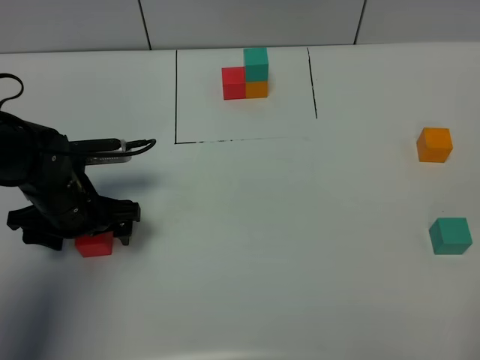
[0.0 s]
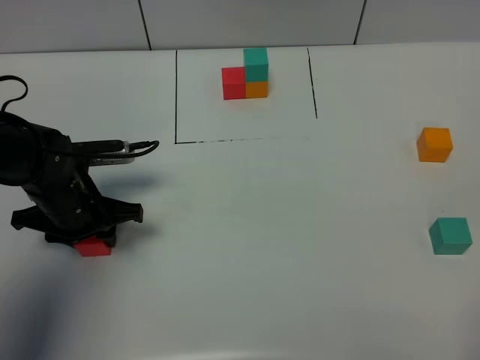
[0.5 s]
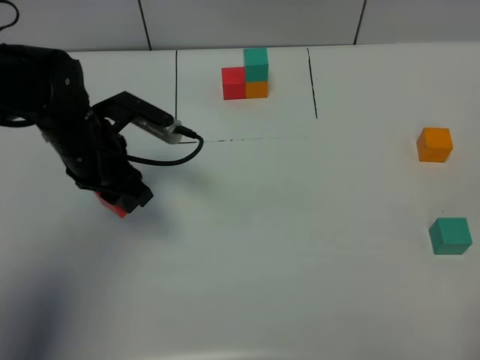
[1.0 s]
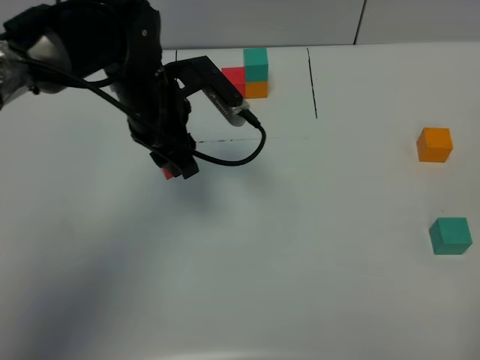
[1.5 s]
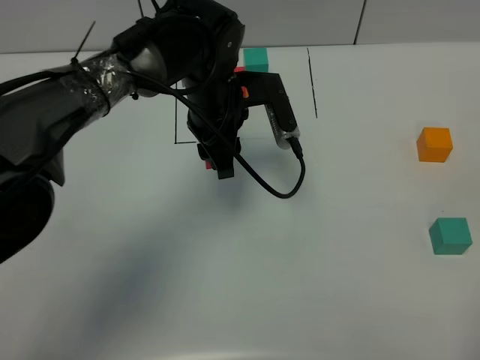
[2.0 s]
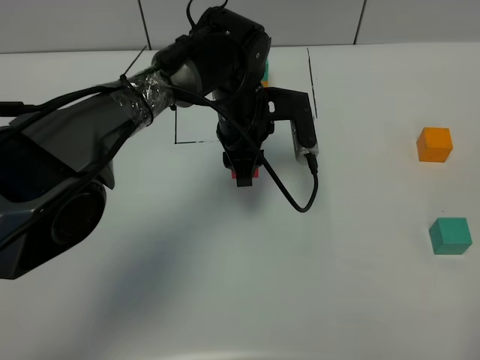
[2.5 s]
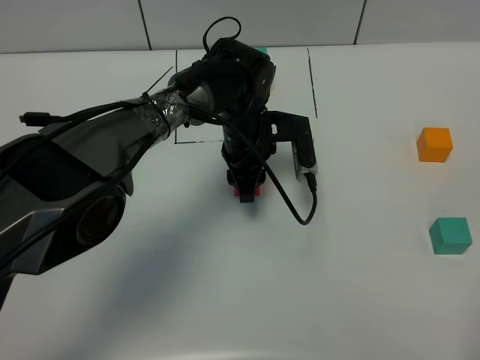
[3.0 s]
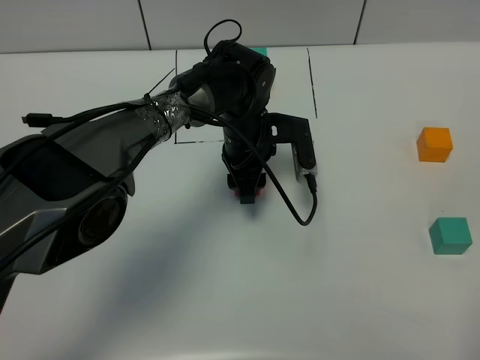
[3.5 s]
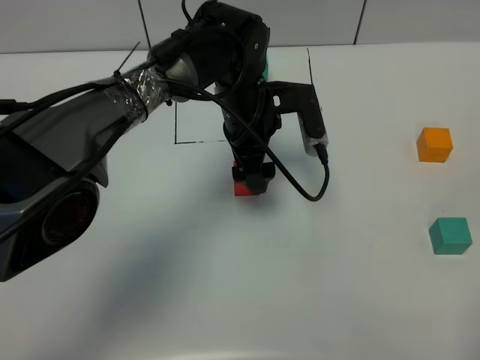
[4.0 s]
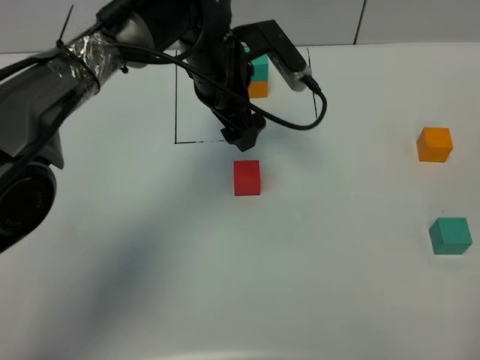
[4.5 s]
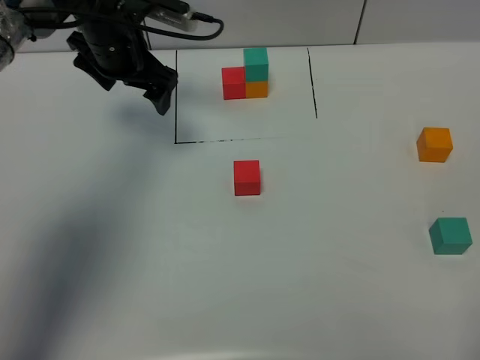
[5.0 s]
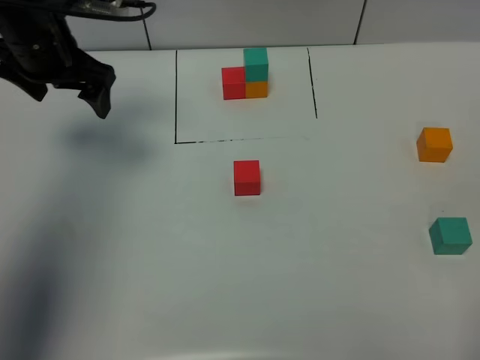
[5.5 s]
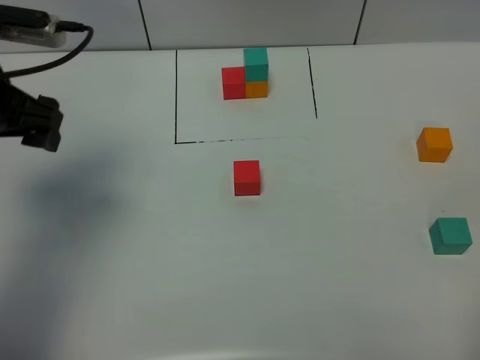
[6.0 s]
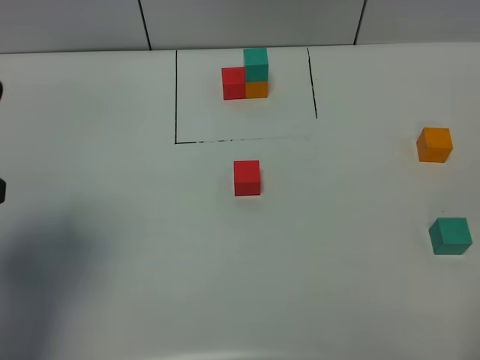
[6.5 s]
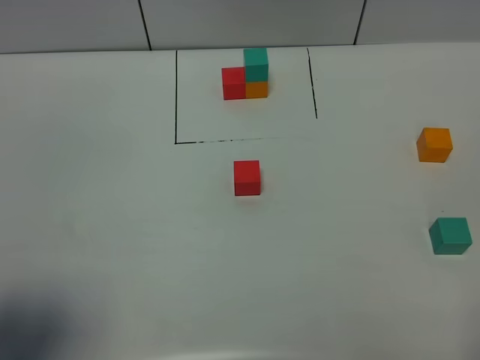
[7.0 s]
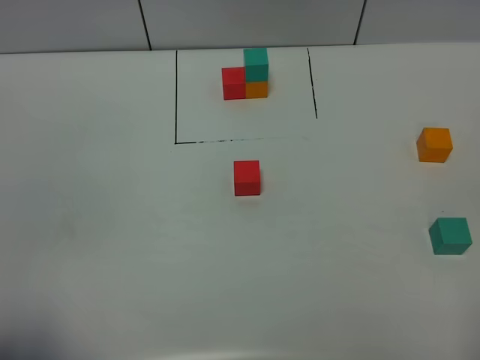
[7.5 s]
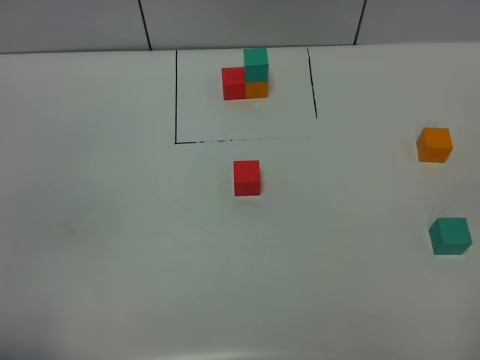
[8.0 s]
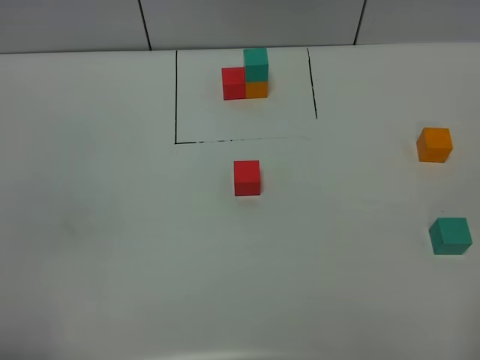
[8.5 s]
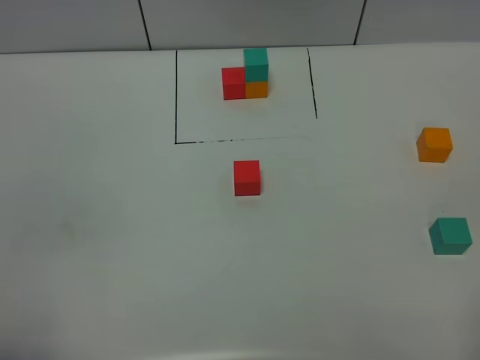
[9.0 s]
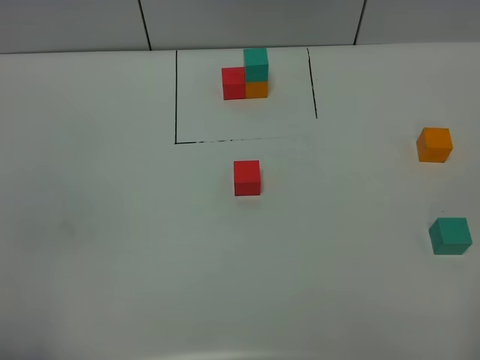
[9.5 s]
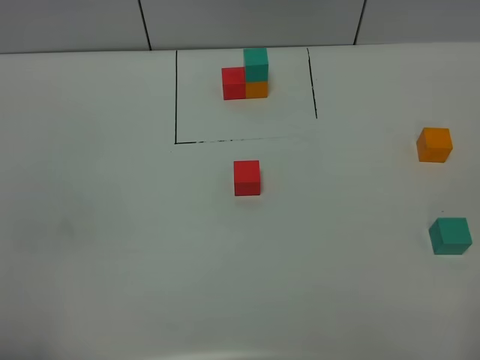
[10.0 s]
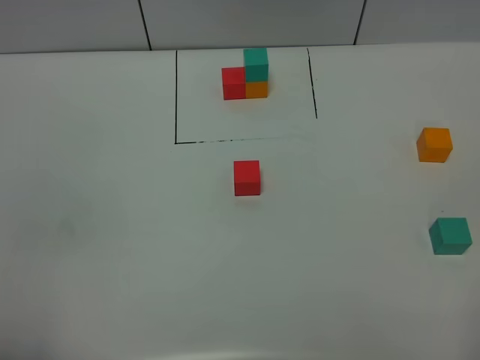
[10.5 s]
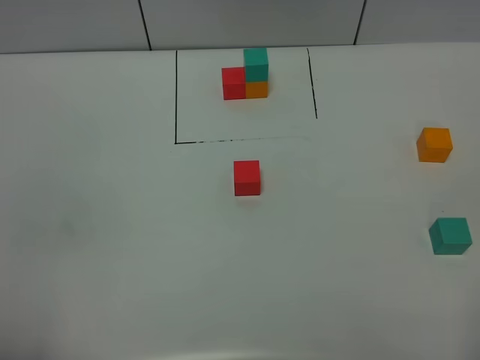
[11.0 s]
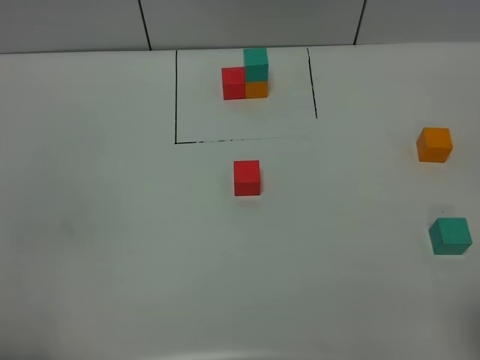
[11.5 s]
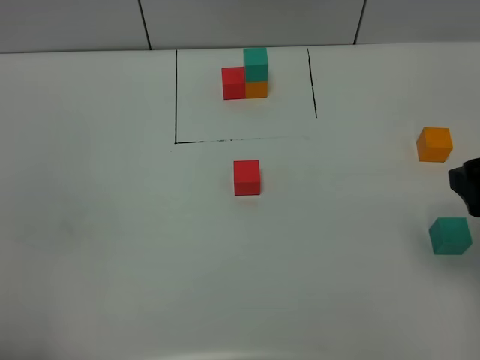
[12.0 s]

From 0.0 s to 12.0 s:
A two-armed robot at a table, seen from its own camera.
Task of the whole recording: According to the building block template in front, assemble the scattered blocks together.
Step, from 0.0 s to 3.5 s: Put the red build block in the center of the table.
From 0.0 s to 2.0 s: The left gripper shifts roughly 20 cm to the right and forward, and closes.
From 2.0 s to 4.0 s: The left gripper goes downward and returns, some 10 cm each way, and opens.
From 4.0 s to 6.0 s: The left gripper shifts roughly 30 cm to the left and upward.
From 6.0 s to 8.0 s: The left gripper travels backward by approximately 30 cm.
From 10.0 s to 12.0 s: The right gripper moves forward, some 20 cm.

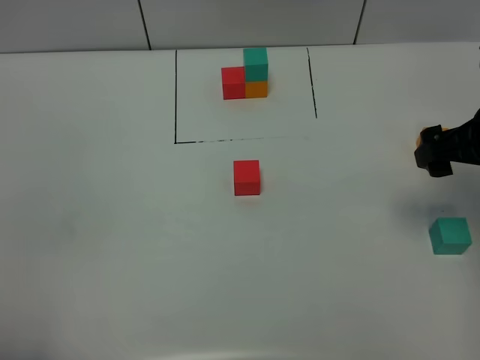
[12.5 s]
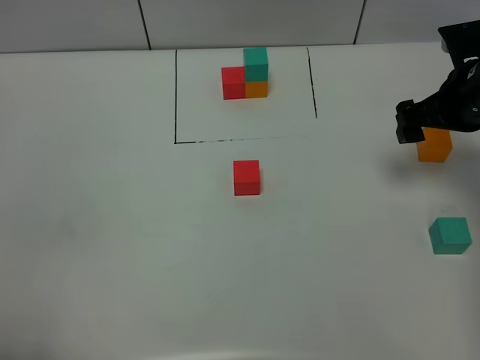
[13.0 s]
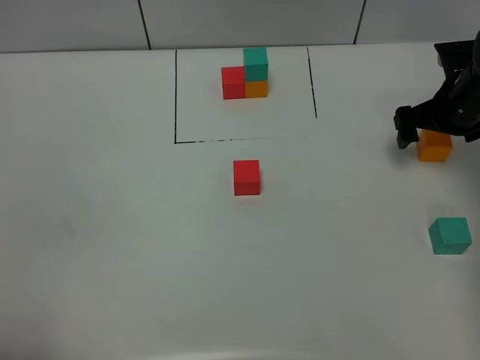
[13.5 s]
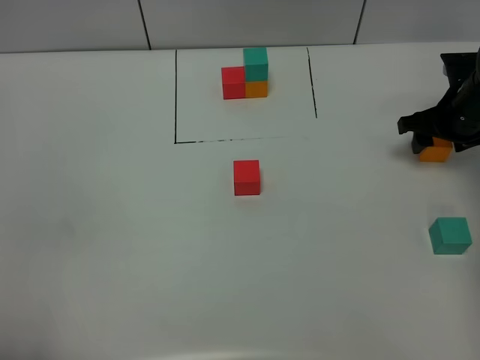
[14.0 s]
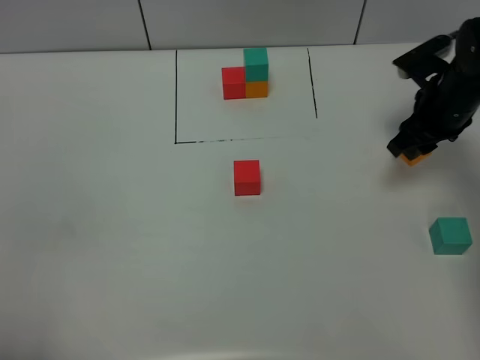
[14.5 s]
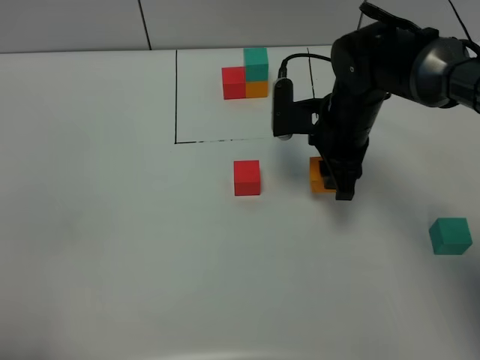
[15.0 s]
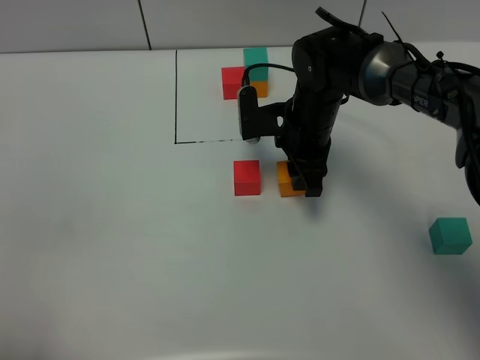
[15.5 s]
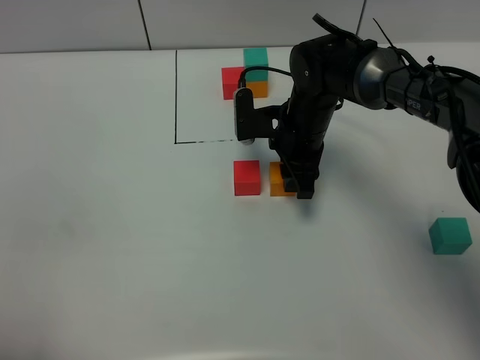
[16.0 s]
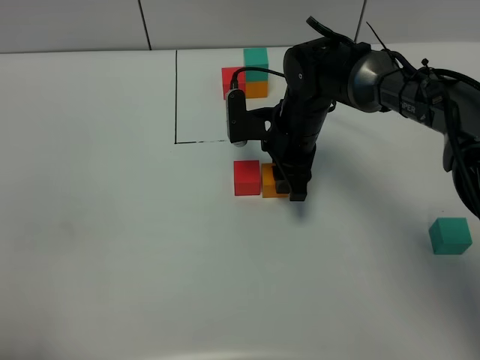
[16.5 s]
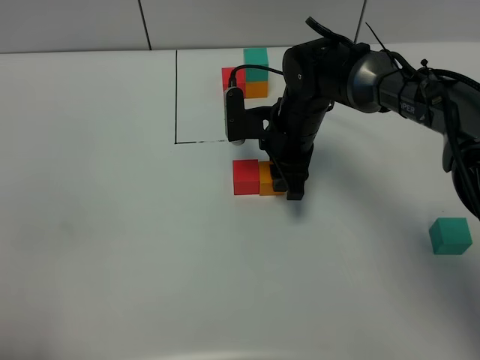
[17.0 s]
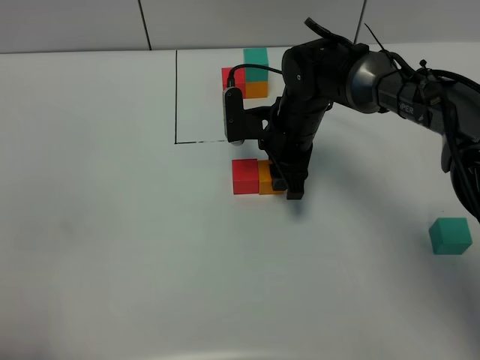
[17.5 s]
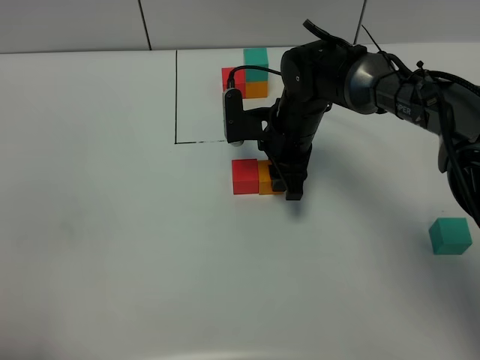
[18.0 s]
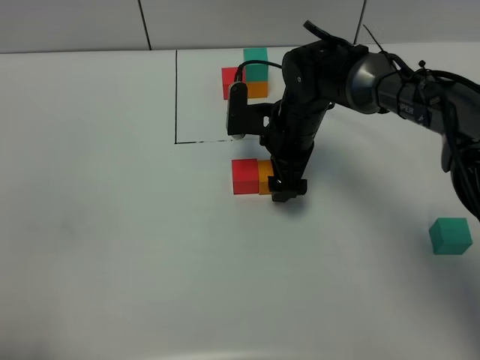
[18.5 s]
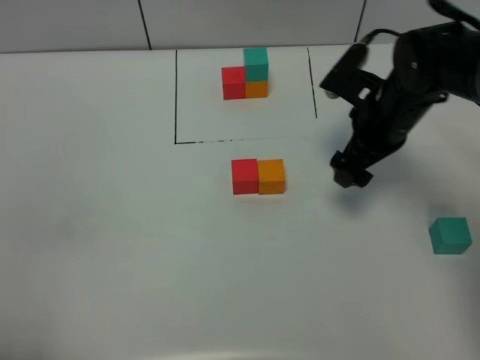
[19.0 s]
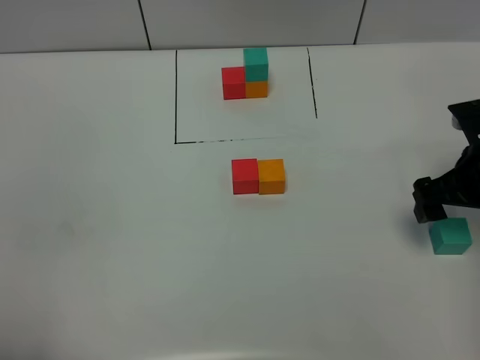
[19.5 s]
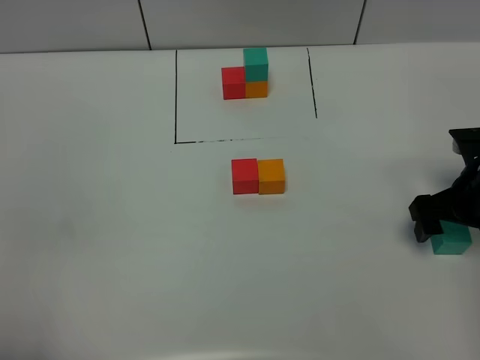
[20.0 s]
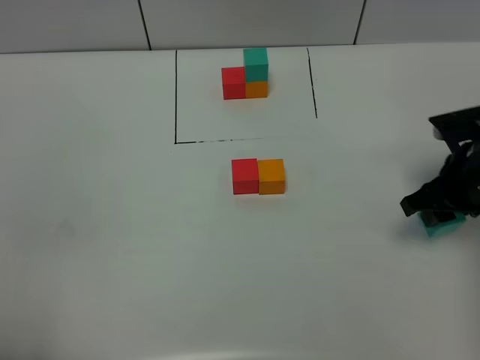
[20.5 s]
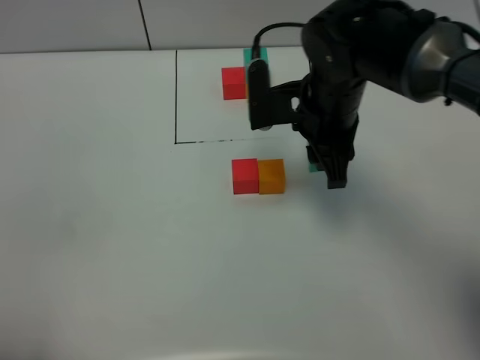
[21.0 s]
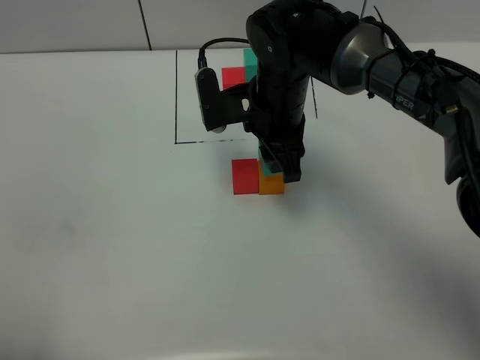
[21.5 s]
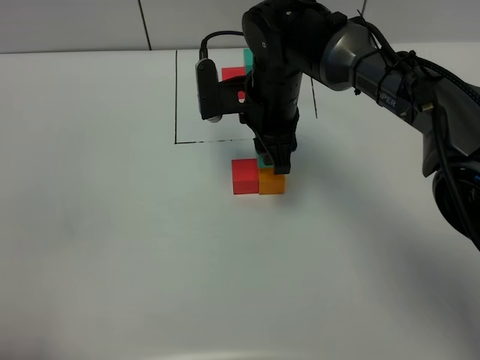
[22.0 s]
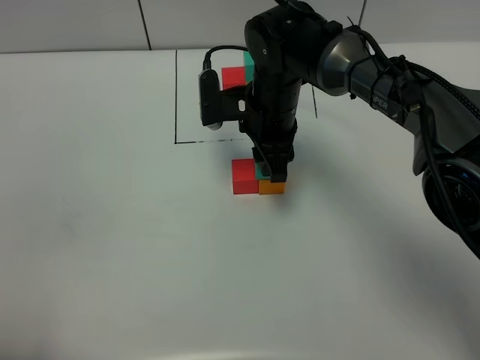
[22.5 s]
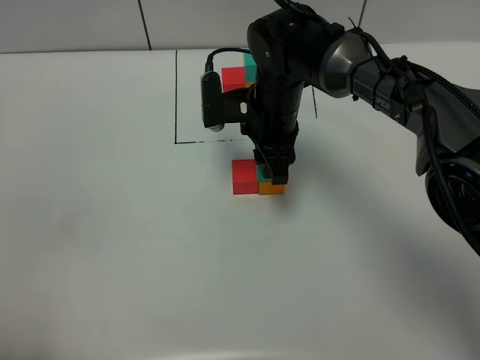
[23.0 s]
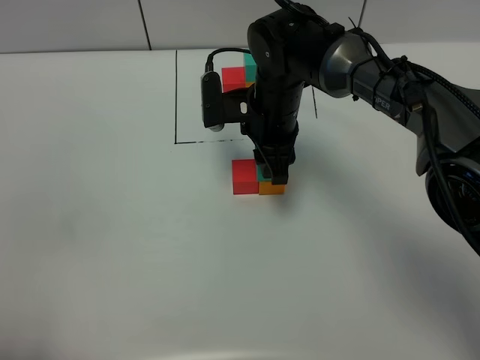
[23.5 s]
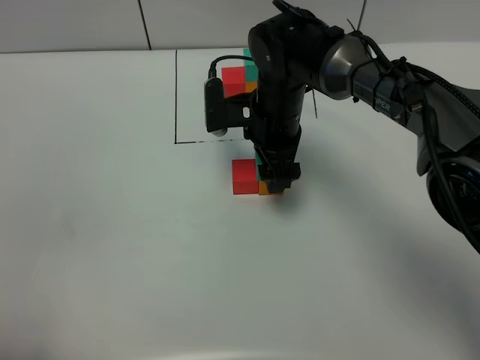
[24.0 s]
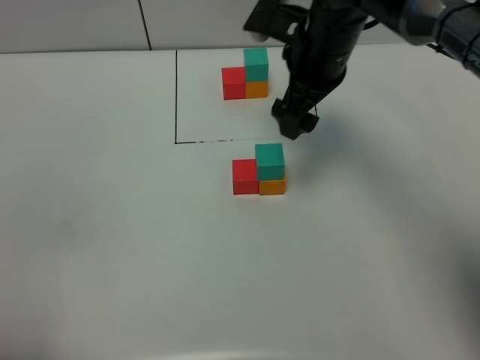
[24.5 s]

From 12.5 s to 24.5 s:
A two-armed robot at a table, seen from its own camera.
Task of the whole recording: According to the building block template in front, assemble the scattered blocks together.
Step, from 12.5 s to 18.5 s: Put the orange build block on the right of the red build block.
Step, from 19.0 s to 24.0 s: Put the green build block on the orange build block.
From 12.5 s to 14.5 s: The right gripper goes some 15 cm forward and downward, and closes up.
From 14.5 s to 16.5 s: The right gripper goes some 20 cm to the left.
From 16.5 s to 18.5 s: The right gripper opens up.
From 18.5 s to 20.5 s: The right gripper is displaced to the right and backward by some 20 cm, and closes its fingers.
From 20.5 s to 22.5 s: The right gripper shifts approximately 25 cm to the left and forward.
From 22.5 s to 24.5 s: The right gripper goes some 10 cm upward and to the right, and opens its fingers.

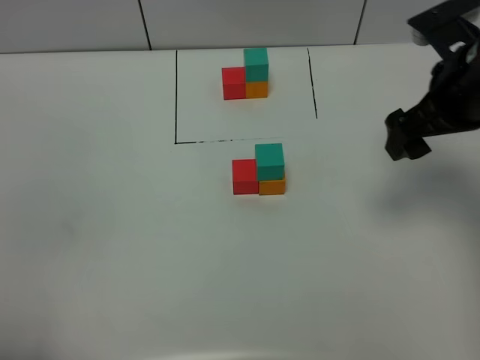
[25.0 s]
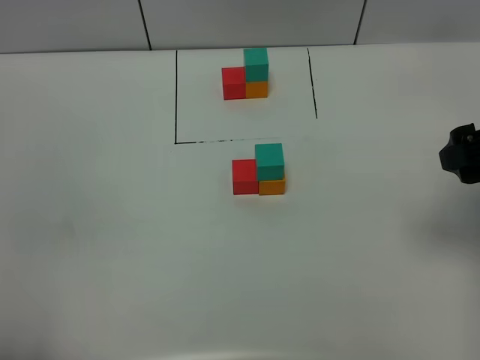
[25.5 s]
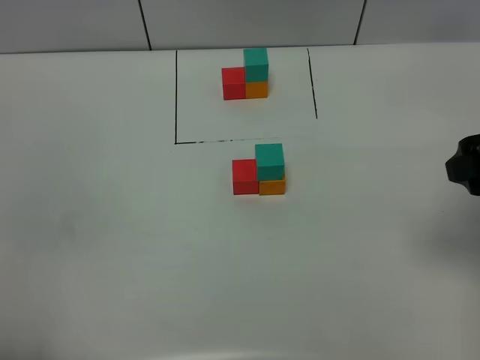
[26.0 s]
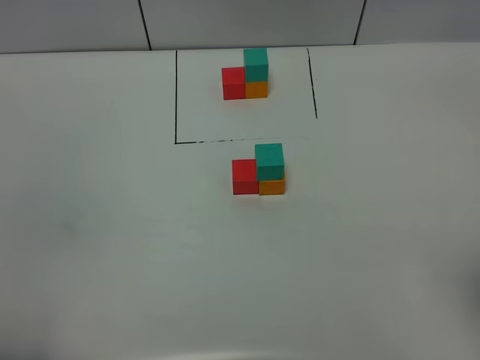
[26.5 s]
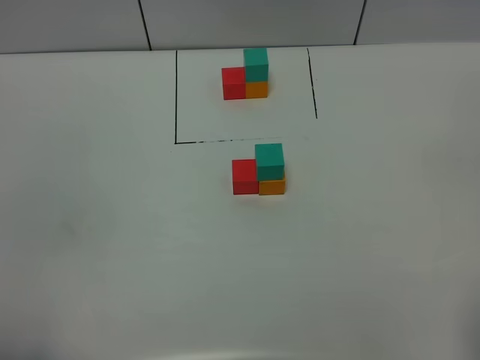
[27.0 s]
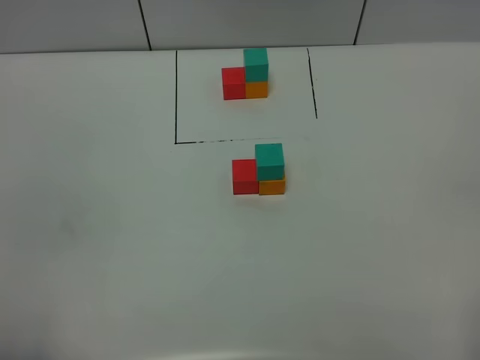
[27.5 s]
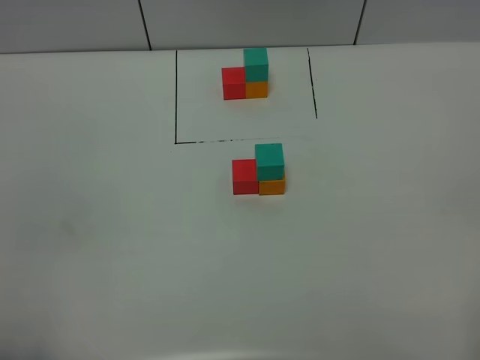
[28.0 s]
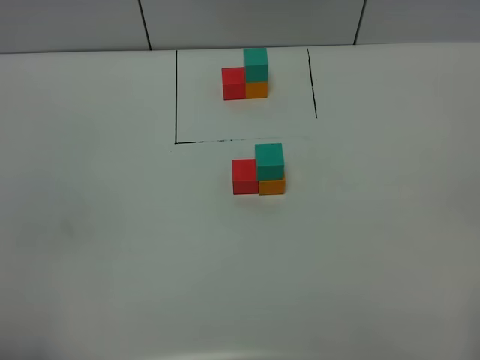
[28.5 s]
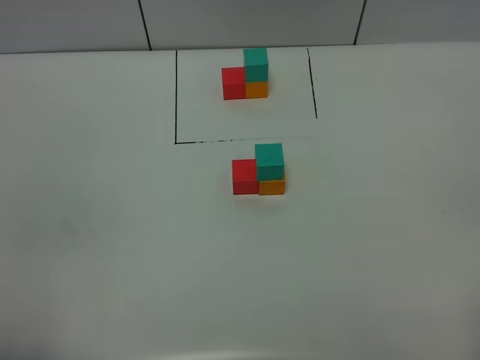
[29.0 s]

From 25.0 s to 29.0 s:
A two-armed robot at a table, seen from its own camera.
Task of the whole recording: According to the building block template in front, assemble the scattered blocks together.
From 25.0 s to 27.0 s: The right gripper travels backward by about 30 cm.
